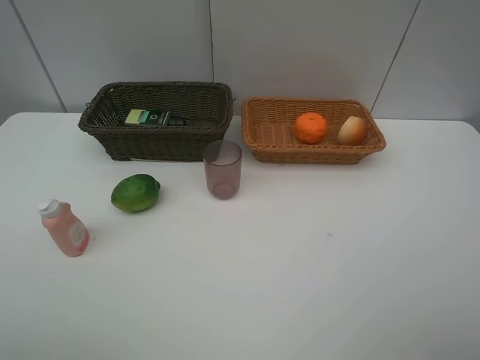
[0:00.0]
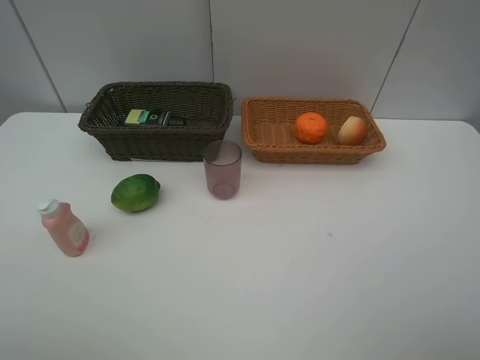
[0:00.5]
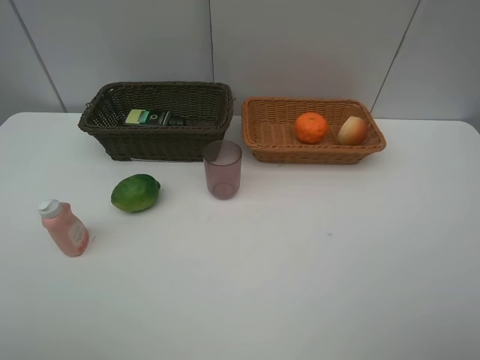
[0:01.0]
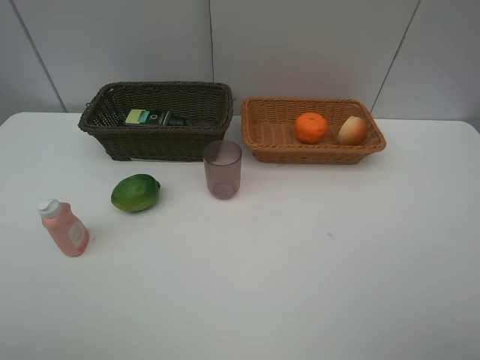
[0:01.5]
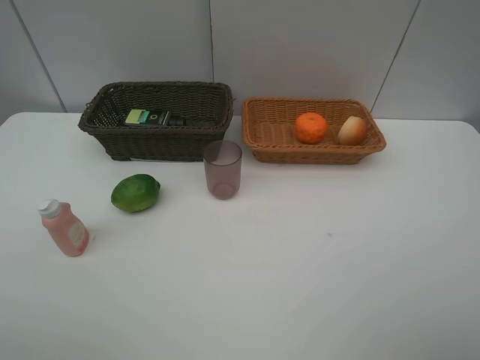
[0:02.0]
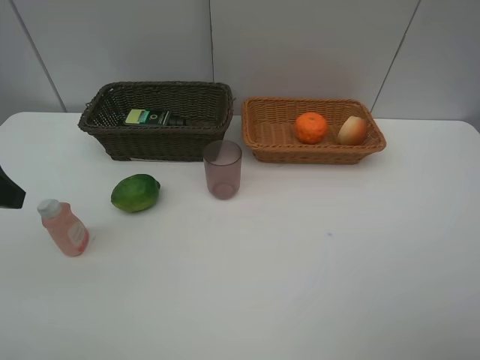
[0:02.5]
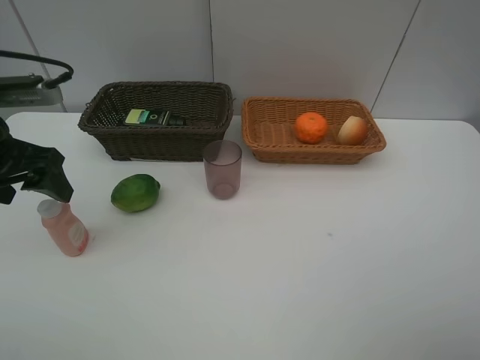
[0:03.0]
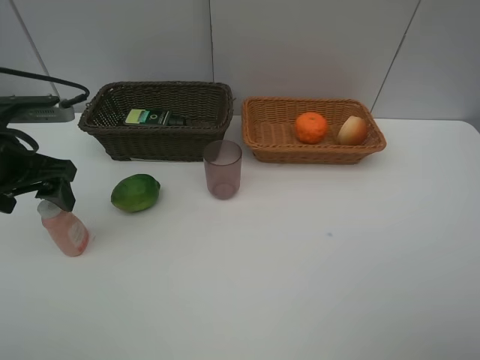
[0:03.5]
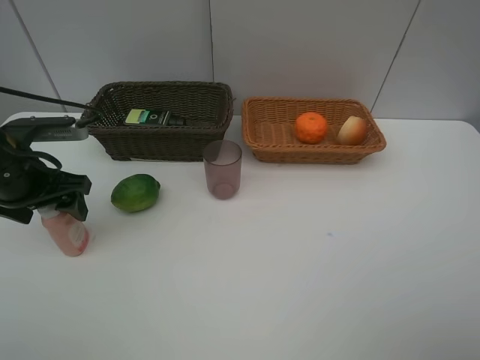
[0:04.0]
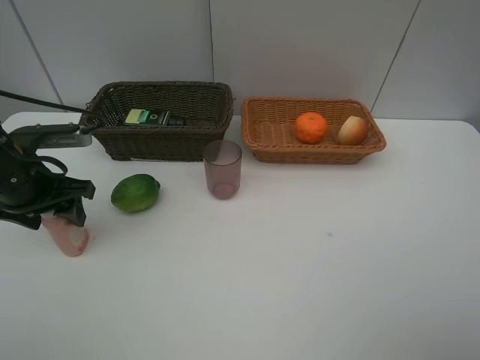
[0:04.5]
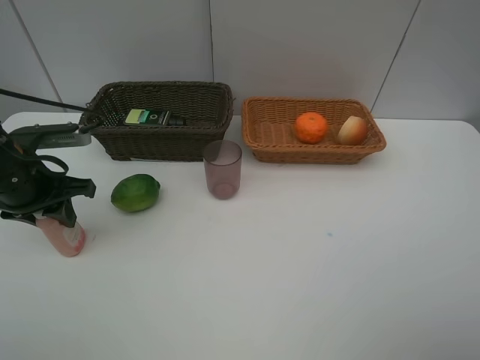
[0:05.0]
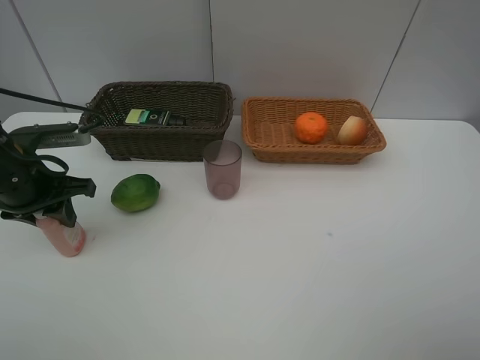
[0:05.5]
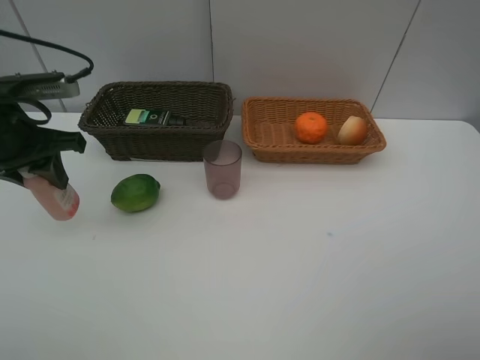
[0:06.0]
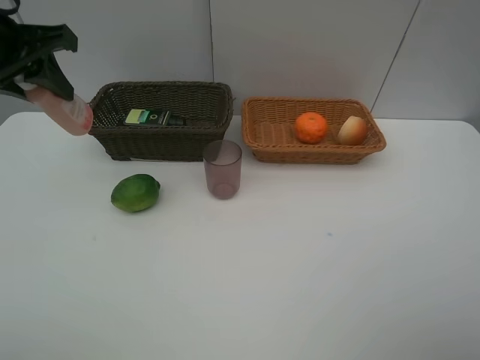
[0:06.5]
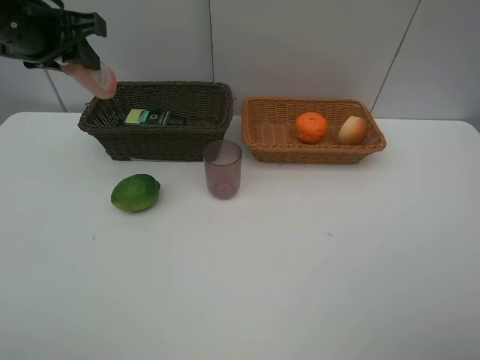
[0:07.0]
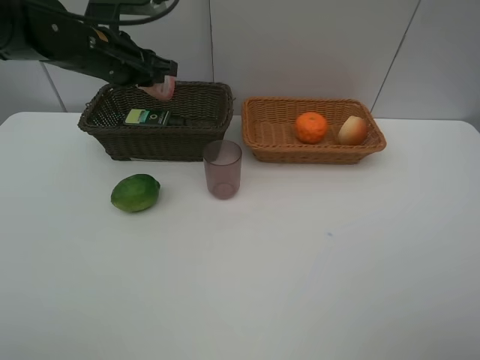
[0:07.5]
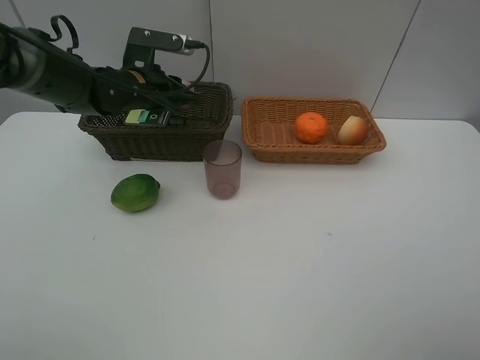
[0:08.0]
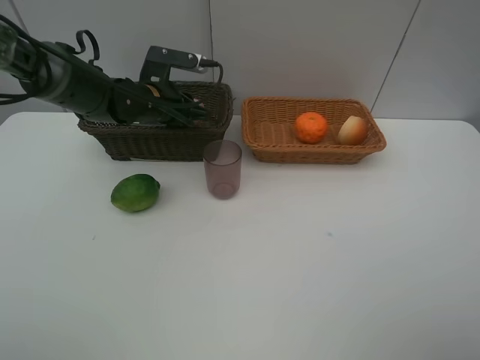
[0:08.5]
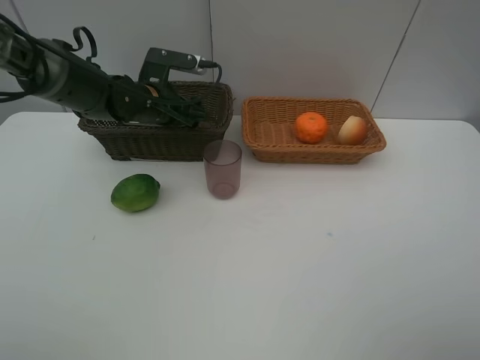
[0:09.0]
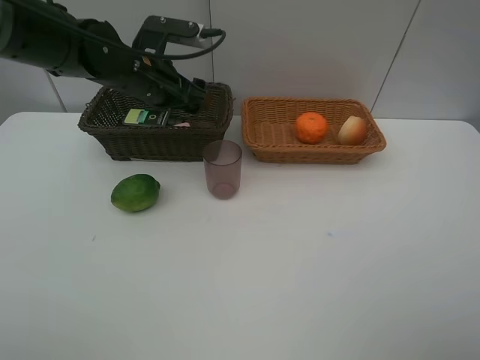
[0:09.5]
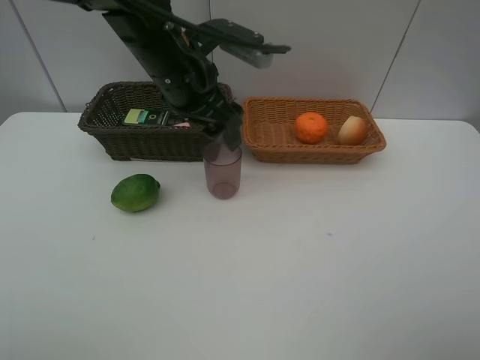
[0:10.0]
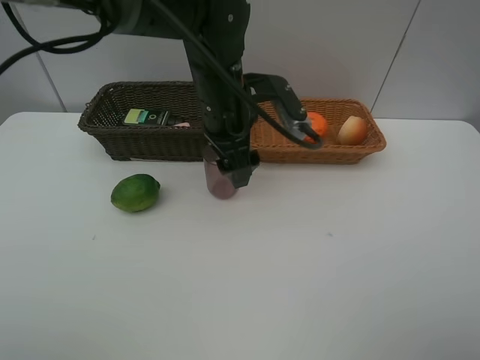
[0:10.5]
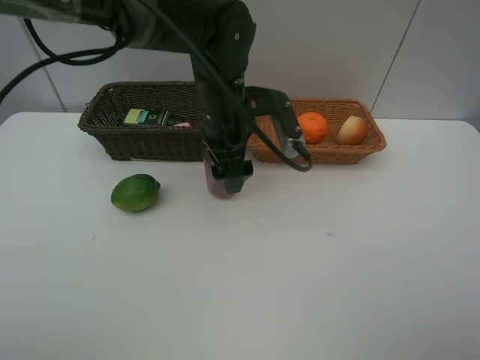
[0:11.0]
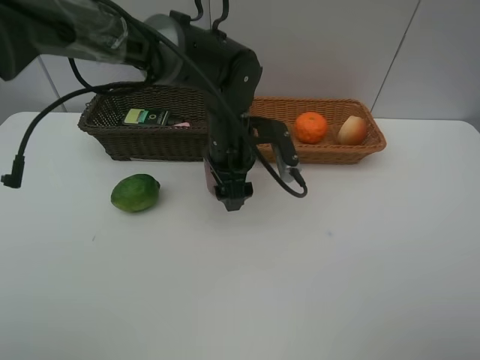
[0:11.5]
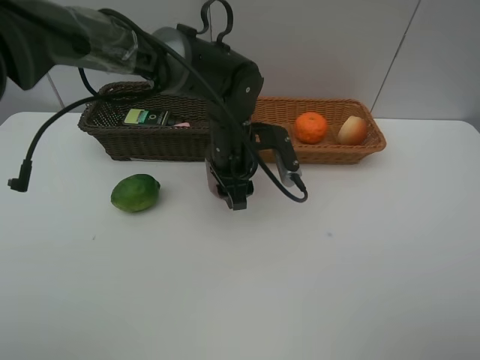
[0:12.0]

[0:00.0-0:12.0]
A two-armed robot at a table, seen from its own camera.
Task of the whole recording: place multiple objects separately in different baskets.
0:02.0 to 0:04.0: The left gripper shifts some 25 cm forward and downward.
0:04.0 to 0:06.0: The left gripper travels upward by roughly 5 cm, and closes its fingers.
0:06.0 to 0:08.0: The left gripper shifts some 20 cm forward, to the right and downward.
0:08.0 to 0:10.0: The left gripper is displaced upward, to the right and backward by some 15 cm, and opens.
0:10.0 to 0:12.0: The left gripper heads downward and to the right, covering approximately 15 cm.

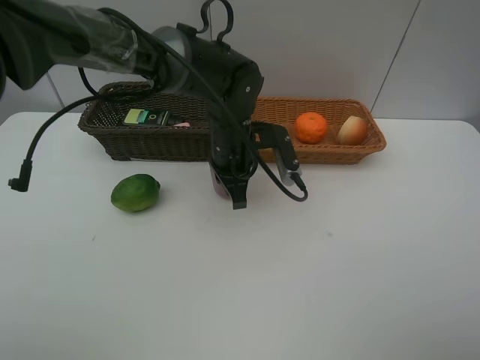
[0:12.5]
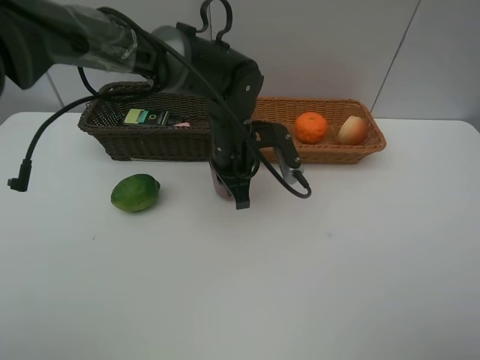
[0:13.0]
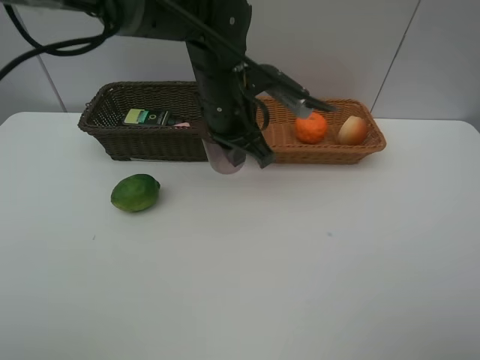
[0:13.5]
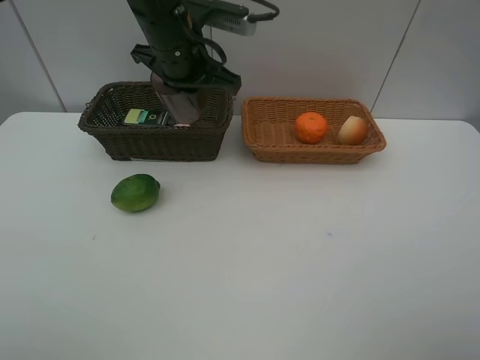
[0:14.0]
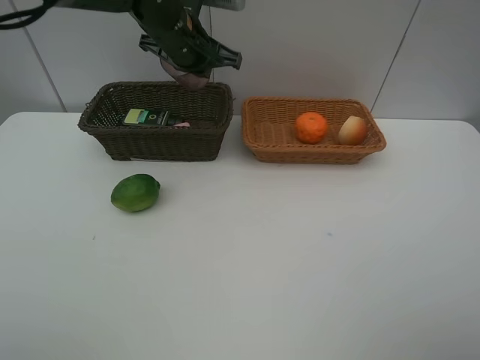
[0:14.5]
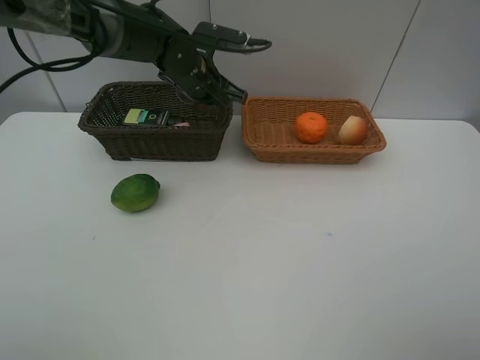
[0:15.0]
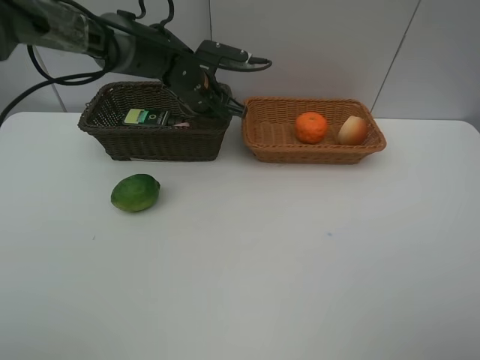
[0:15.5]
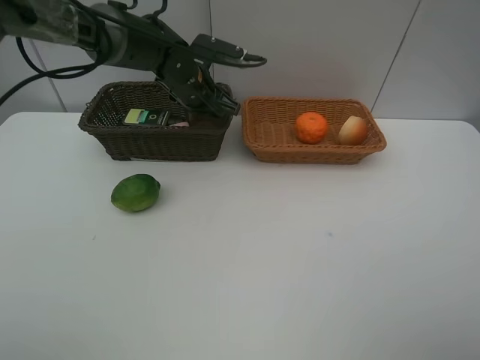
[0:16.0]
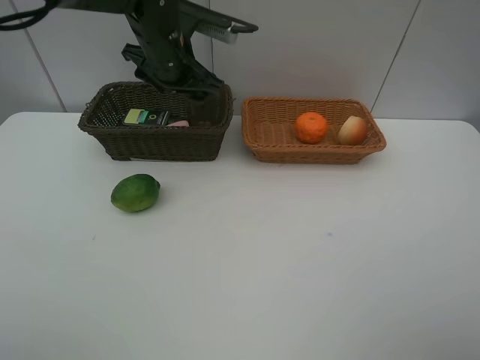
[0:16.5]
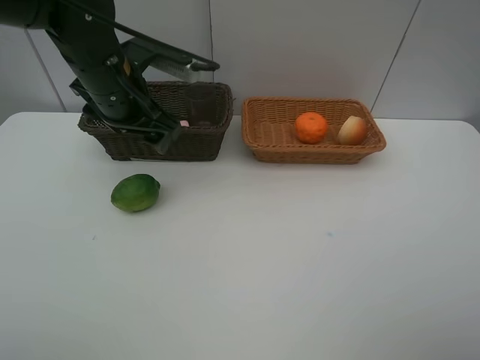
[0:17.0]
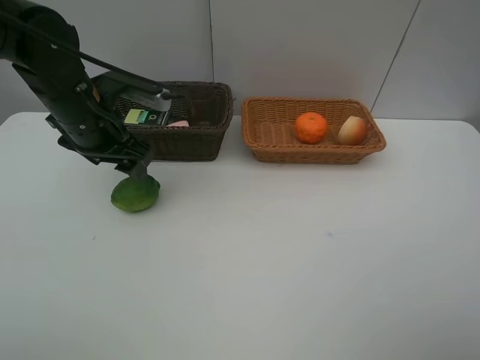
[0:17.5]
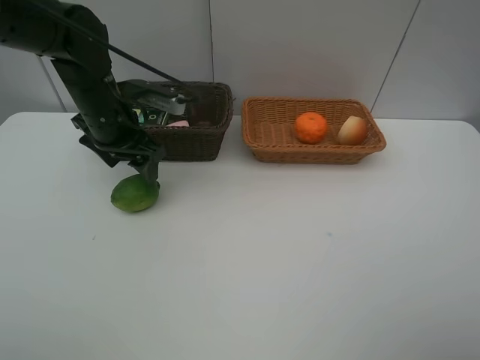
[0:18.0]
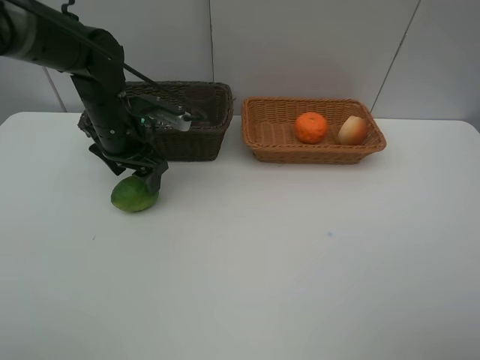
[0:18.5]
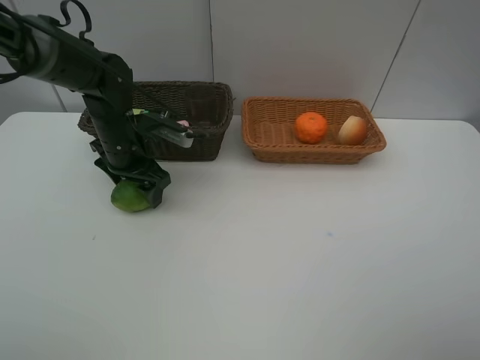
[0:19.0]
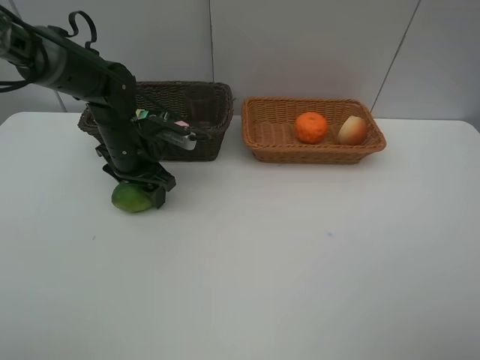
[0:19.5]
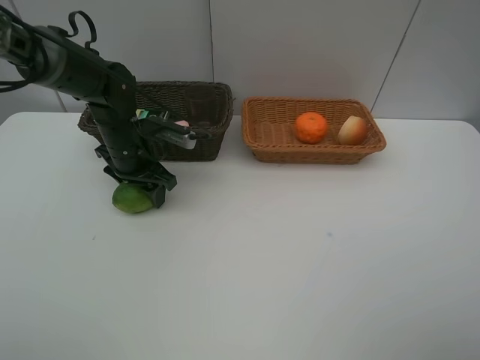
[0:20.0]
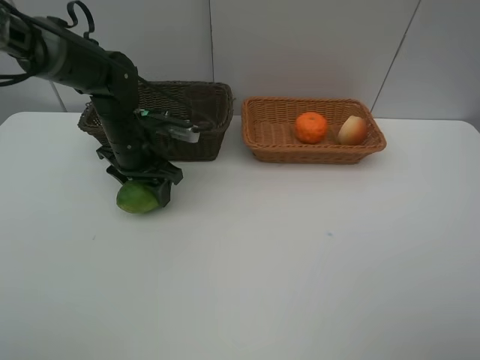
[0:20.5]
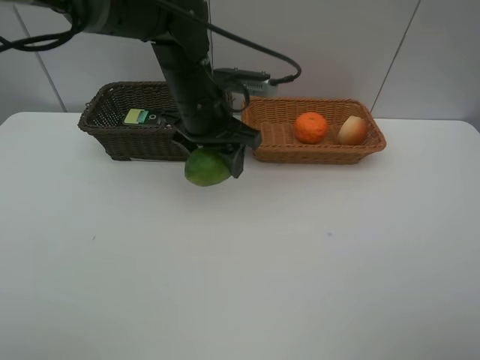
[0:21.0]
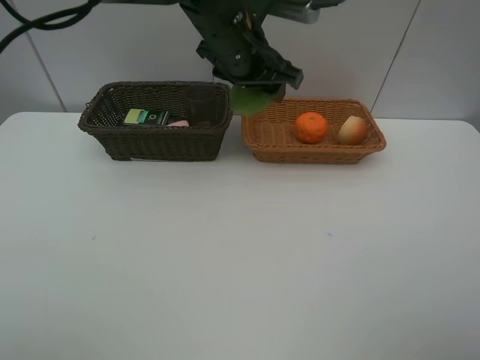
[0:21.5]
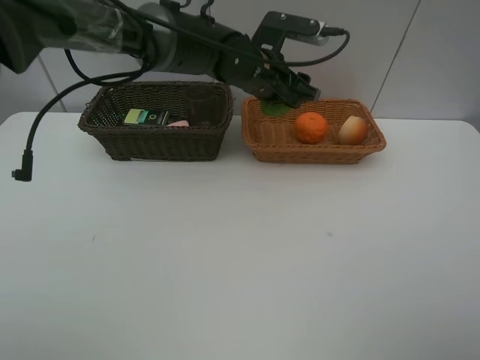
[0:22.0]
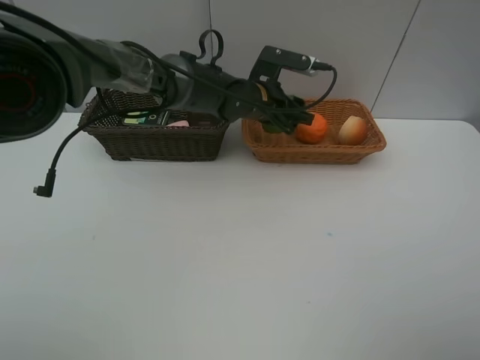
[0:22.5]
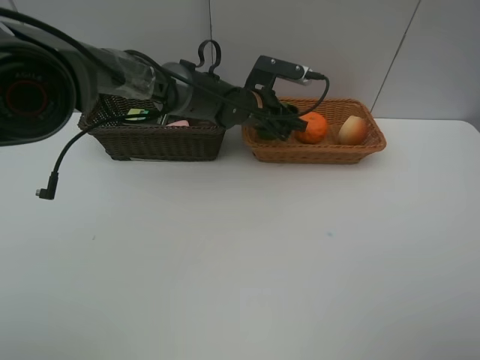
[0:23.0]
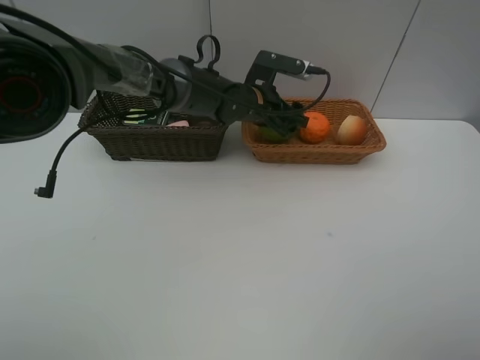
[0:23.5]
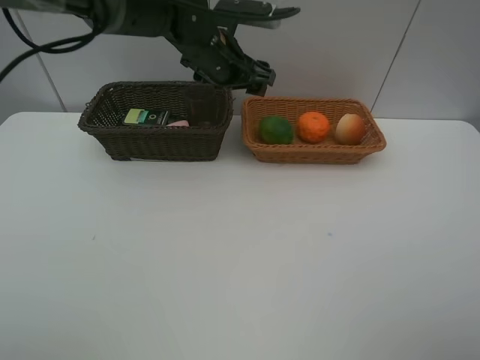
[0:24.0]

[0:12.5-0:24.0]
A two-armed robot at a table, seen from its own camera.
Task of the whole recording: place multiple objects separately in different baskets.
0:12.5 to 0:14.5: The left gripper is displaced upward, forward and to the left by about 15 cm.
0:14.5 to 0:16.5: The left gripper travels downward and back again, about 10 cm each way, and opens up.
0:16.5 to 0:18.5: The left gripper travels downward and to the left by roughly 10 cm.
0:18.5 to 0:20.0: The grippers make only small movements.
0:20.0 to 0:22.0: The left gripper heads to the right and upward, covering about 20 cm.
0:22.0 to 0:24.0: The left gripper heads to the left, covering about 10 cm, and reaches approximately 5 cm downward, then returns.

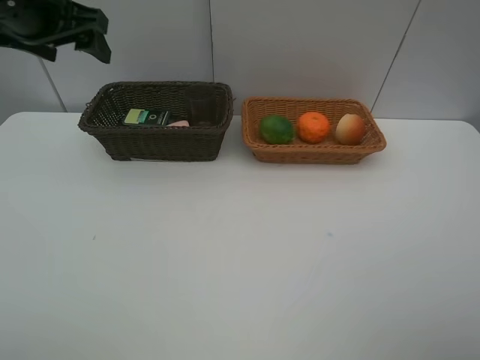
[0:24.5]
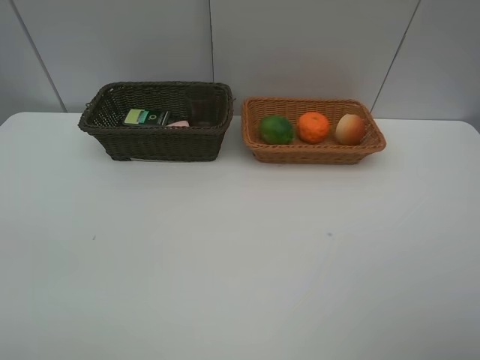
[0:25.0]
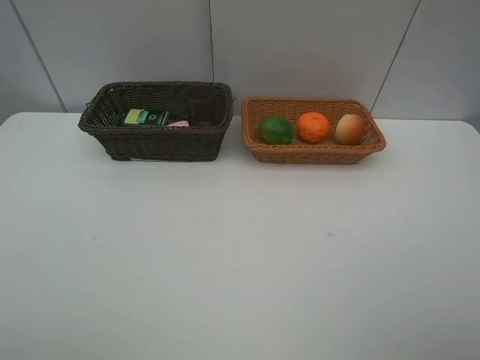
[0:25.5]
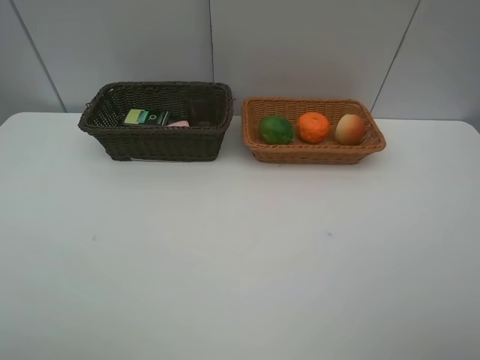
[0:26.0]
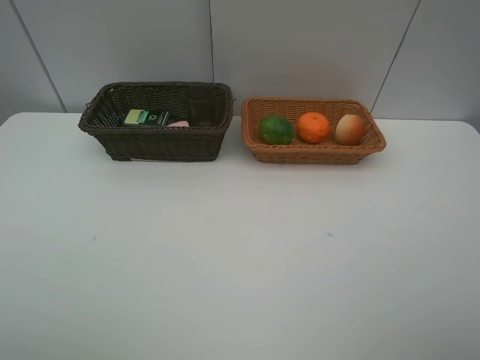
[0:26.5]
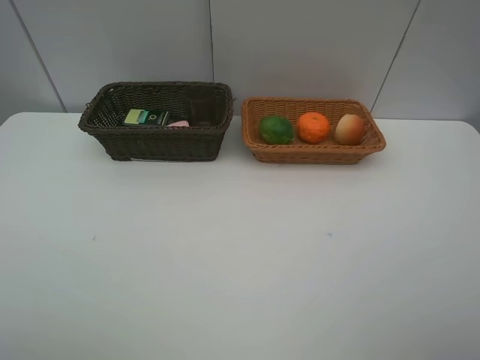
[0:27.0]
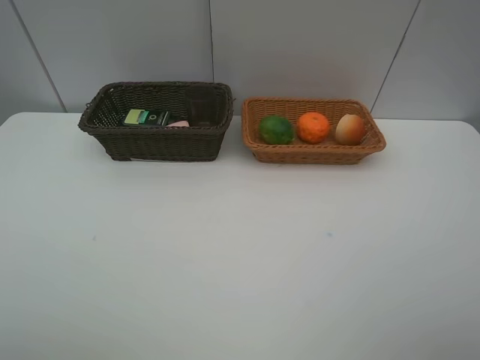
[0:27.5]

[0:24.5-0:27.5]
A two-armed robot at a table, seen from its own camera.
Task of the whole recording: place multiple objects separately in different baskets.
0:24.5 to 0:26.0: The left gripper goes roughly 35 cm backward.
